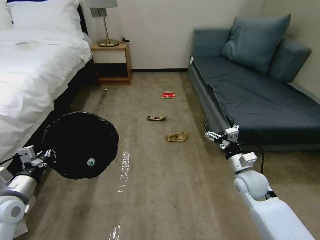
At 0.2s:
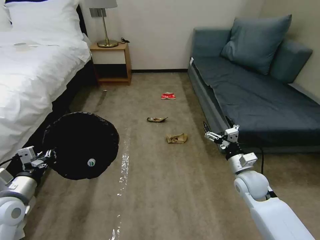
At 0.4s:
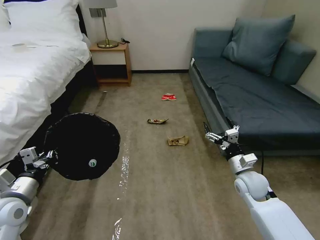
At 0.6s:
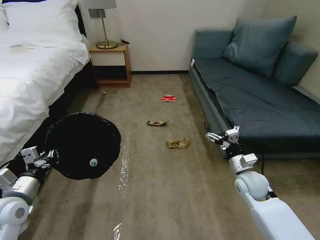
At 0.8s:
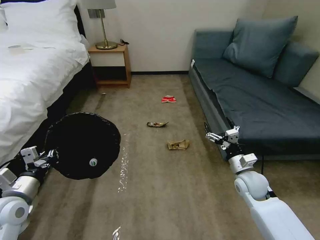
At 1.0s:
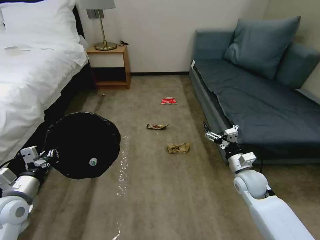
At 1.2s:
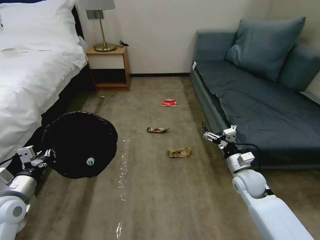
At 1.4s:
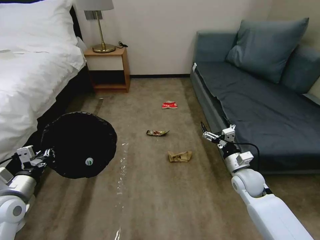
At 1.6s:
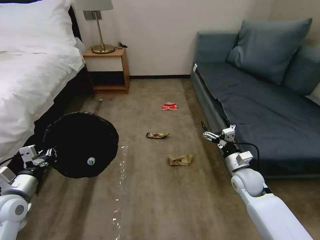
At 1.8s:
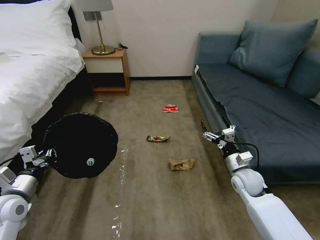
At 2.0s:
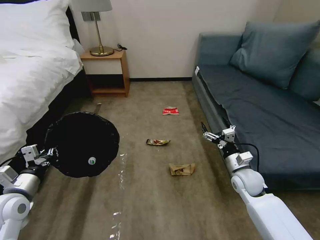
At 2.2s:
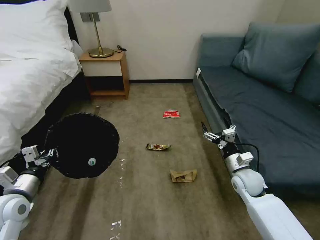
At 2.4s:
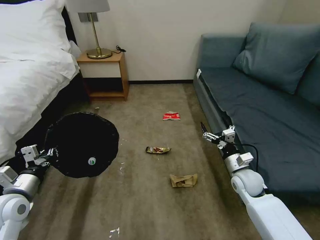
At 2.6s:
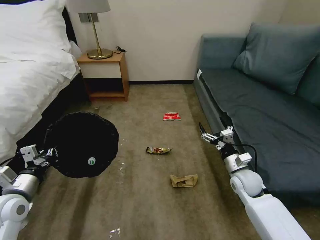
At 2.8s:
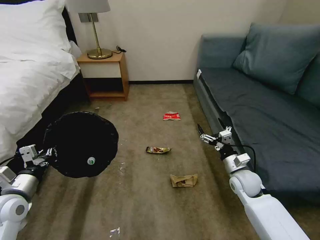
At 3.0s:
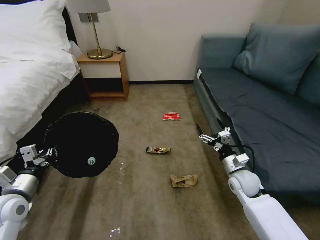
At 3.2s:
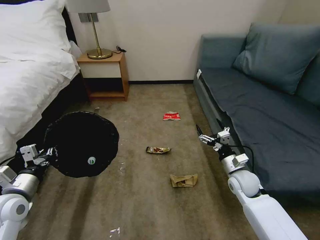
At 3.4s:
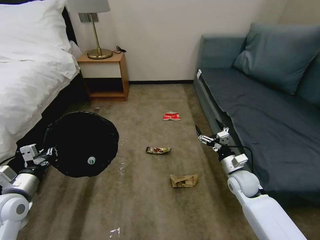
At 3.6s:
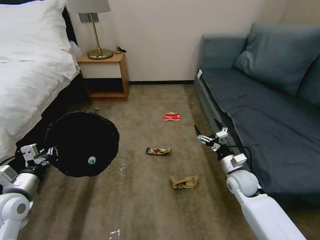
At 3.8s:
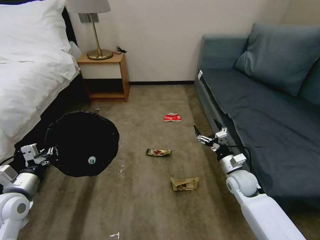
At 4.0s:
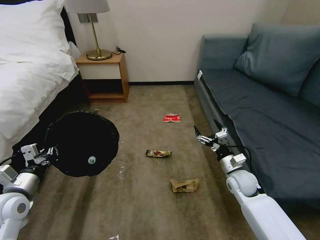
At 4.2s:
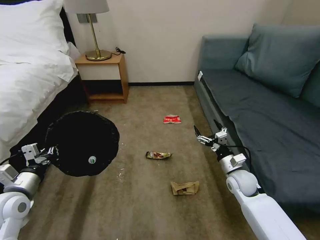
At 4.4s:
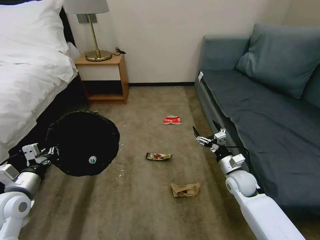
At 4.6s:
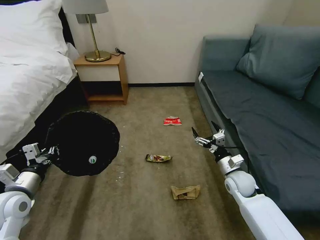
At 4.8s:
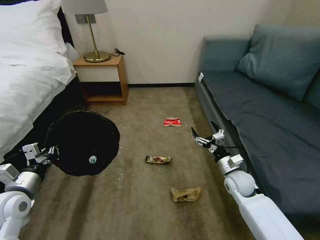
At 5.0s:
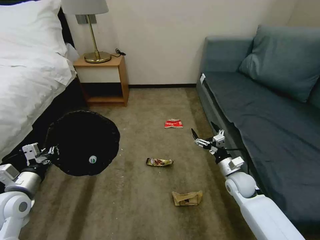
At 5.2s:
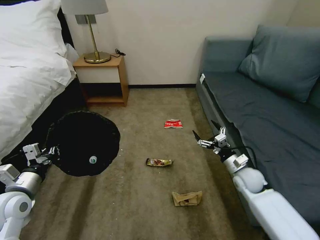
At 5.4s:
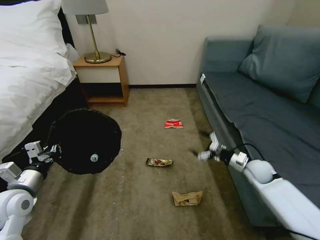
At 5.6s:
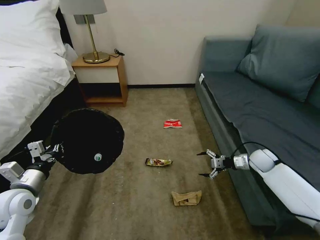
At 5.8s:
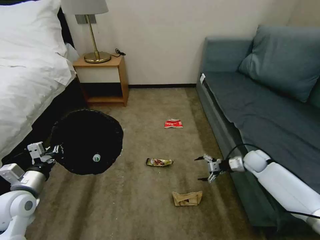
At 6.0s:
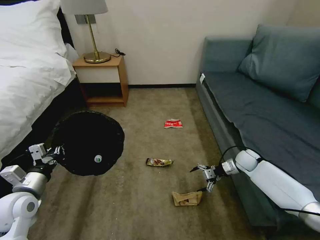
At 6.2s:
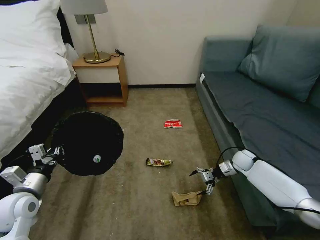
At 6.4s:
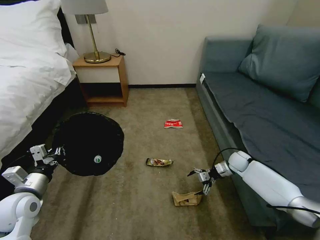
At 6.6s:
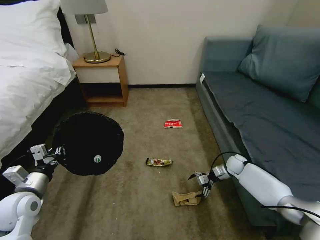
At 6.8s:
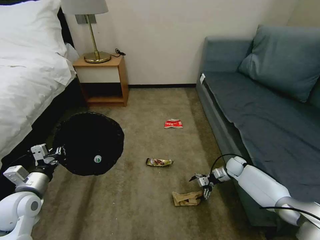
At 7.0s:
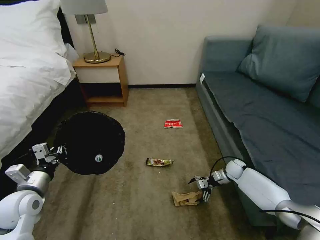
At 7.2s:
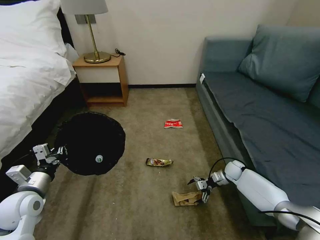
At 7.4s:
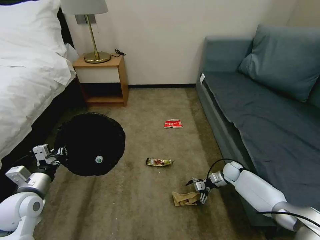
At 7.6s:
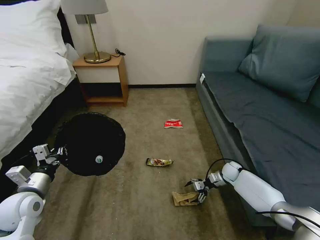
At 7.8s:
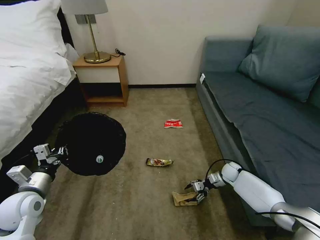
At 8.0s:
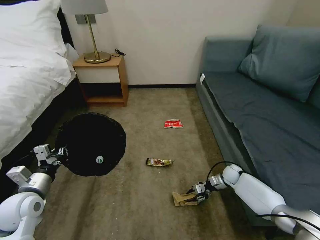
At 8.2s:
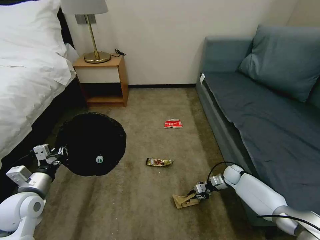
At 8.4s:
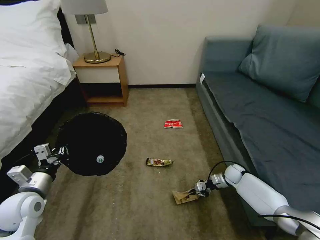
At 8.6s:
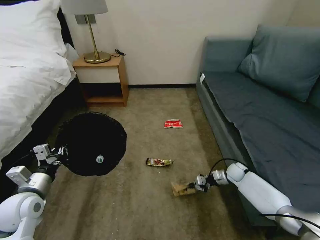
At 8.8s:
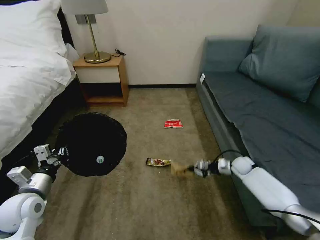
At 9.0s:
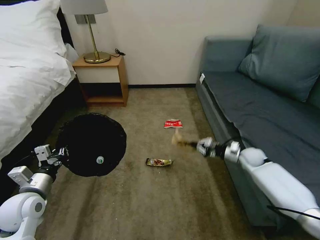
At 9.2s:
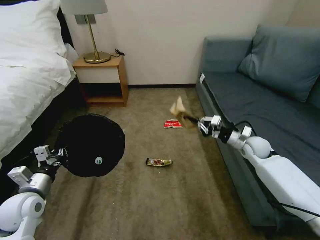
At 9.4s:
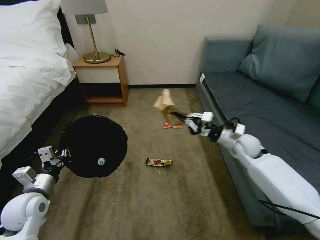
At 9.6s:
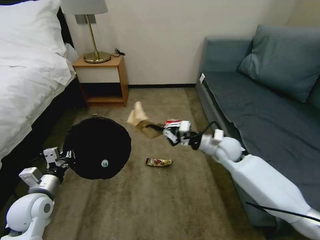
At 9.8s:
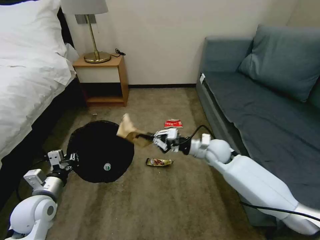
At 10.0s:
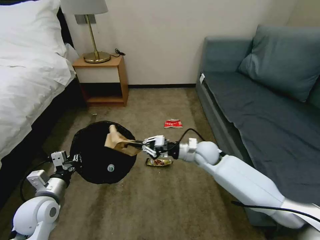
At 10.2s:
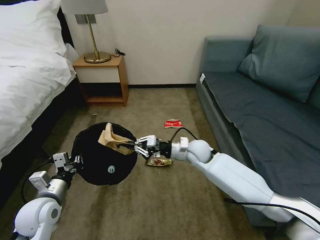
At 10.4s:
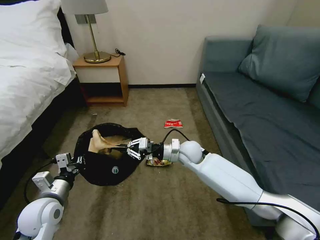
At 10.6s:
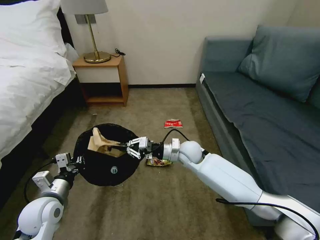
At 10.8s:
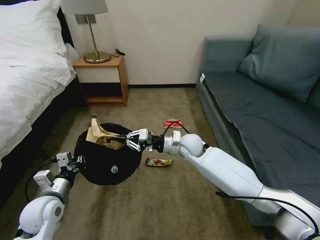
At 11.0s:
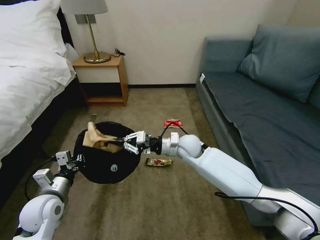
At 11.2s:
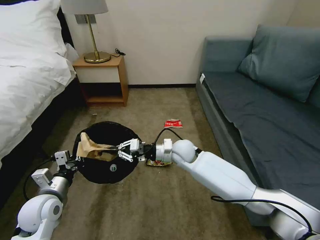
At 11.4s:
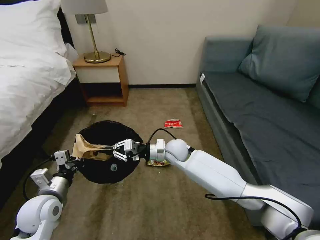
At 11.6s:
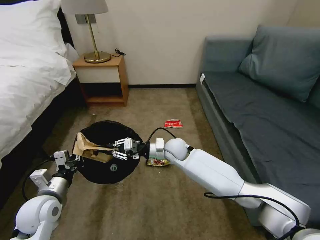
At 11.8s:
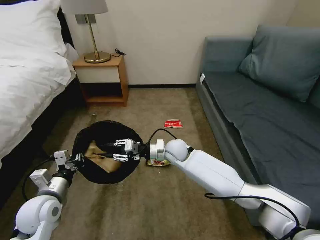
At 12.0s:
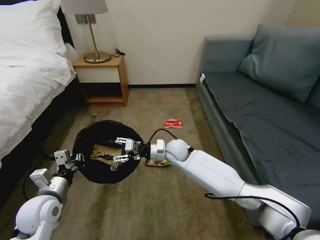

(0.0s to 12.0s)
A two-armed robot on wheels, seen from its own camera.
Task of the whole recording: Pick up the trash bin, then pick up the garbage on the floor and place it into the trash bin.
3.0s - 4.4s: The two grippers keep their place.
4.4s - 6.0s: The right gripper shifts approximately 15 cm forward and to the right.
6.0s - 7.6s: The right gripper heads downward, covering about 10 cm.
7.6s - 9.0s: The right gripper heads upward, covering approximately 5 cm, and closes.
9.0s - 10.4s: The right gripper shifts roughly 30 cm to the left and upward.
10.4s - 12.0s: The right gripper travels to the left by approximately 5 cm, and opens its fingers.

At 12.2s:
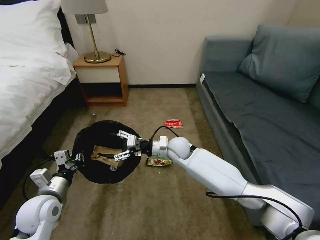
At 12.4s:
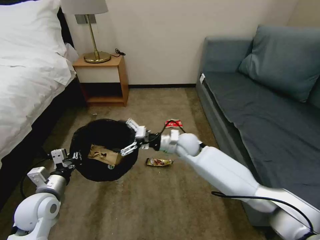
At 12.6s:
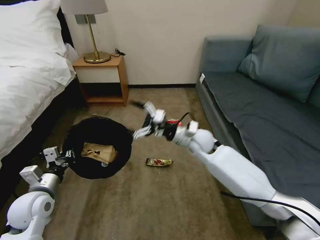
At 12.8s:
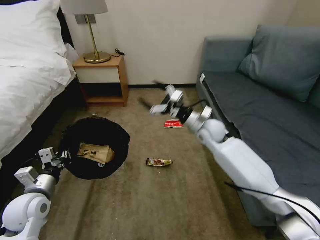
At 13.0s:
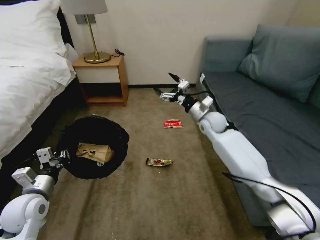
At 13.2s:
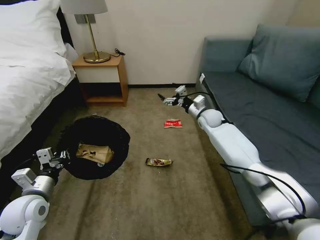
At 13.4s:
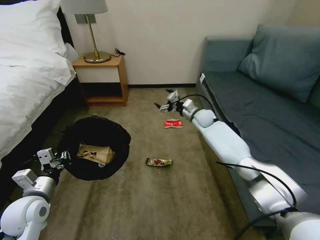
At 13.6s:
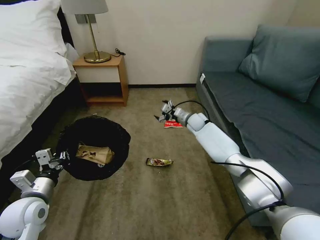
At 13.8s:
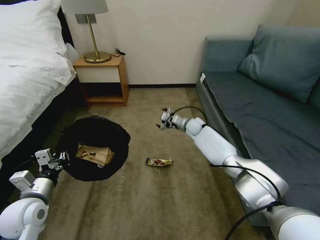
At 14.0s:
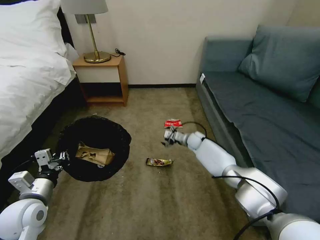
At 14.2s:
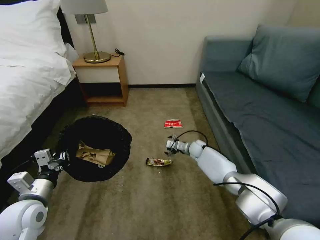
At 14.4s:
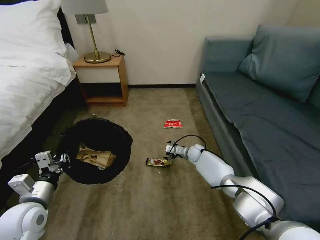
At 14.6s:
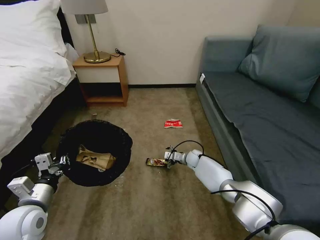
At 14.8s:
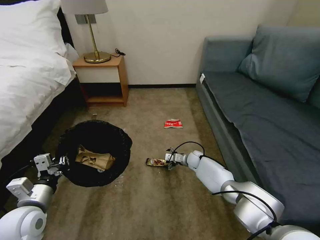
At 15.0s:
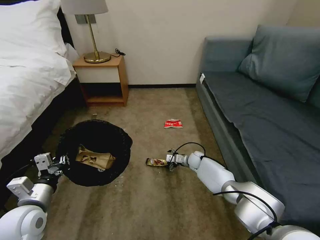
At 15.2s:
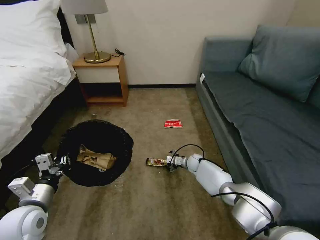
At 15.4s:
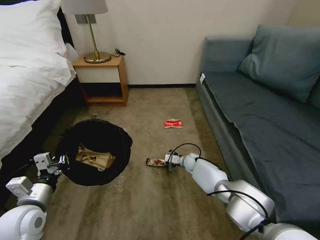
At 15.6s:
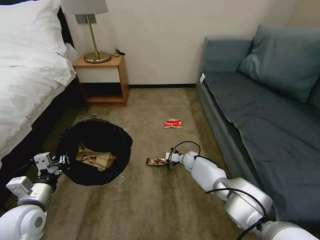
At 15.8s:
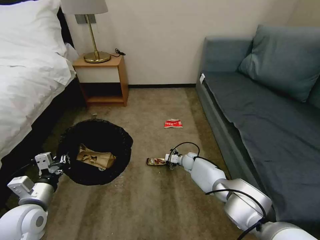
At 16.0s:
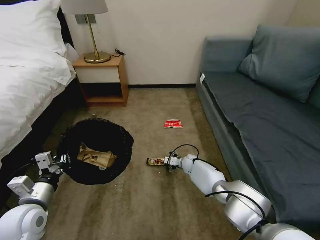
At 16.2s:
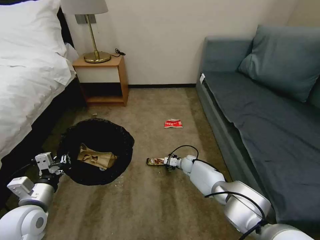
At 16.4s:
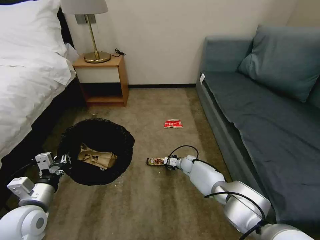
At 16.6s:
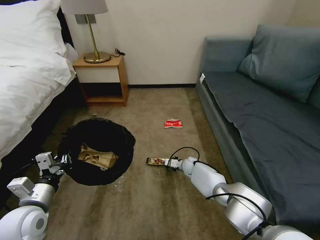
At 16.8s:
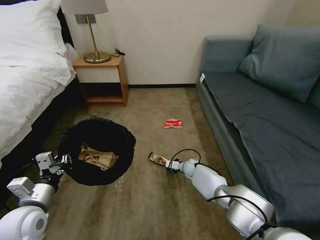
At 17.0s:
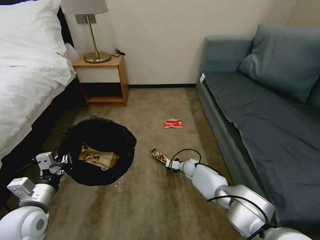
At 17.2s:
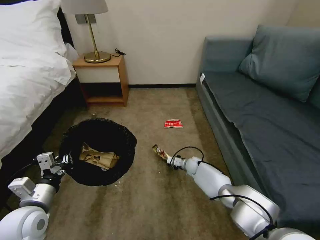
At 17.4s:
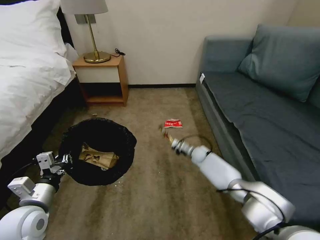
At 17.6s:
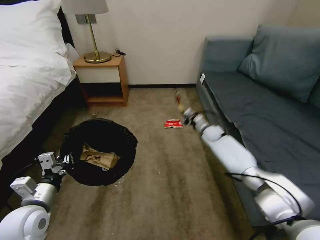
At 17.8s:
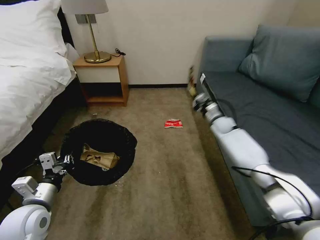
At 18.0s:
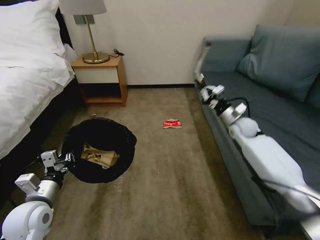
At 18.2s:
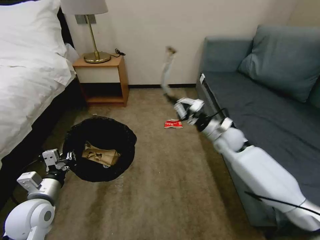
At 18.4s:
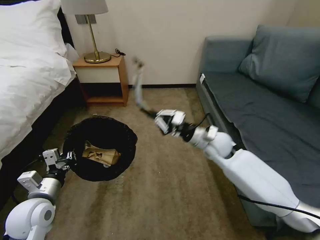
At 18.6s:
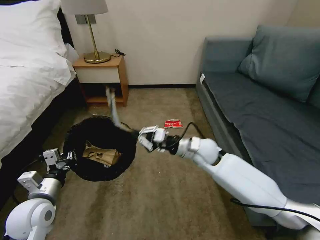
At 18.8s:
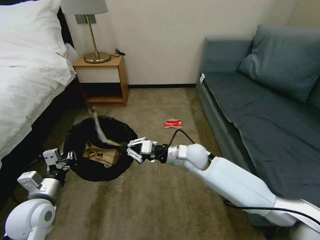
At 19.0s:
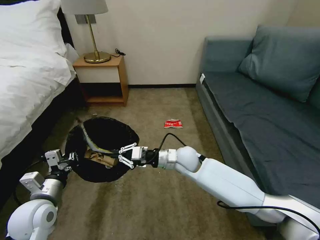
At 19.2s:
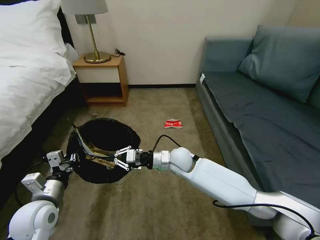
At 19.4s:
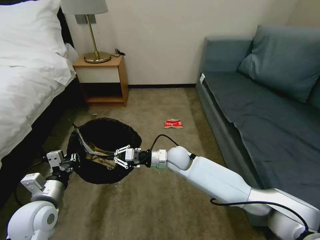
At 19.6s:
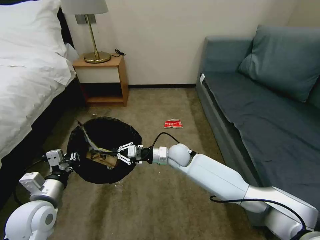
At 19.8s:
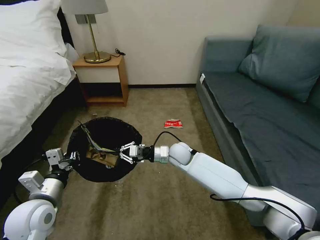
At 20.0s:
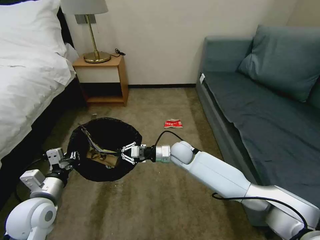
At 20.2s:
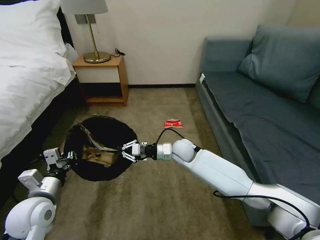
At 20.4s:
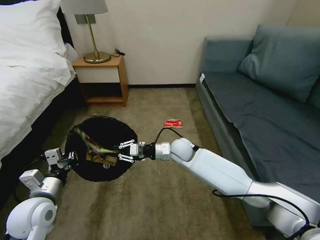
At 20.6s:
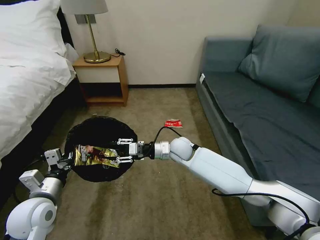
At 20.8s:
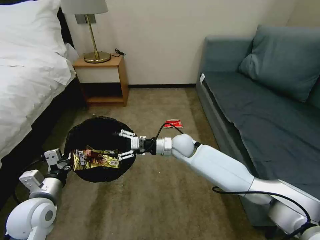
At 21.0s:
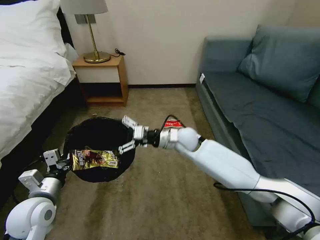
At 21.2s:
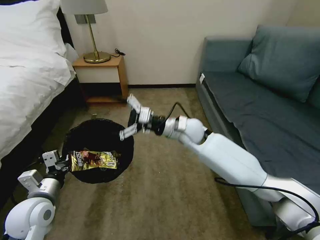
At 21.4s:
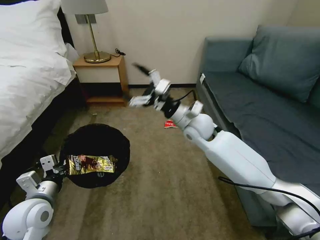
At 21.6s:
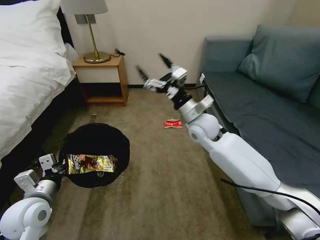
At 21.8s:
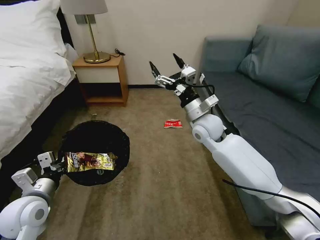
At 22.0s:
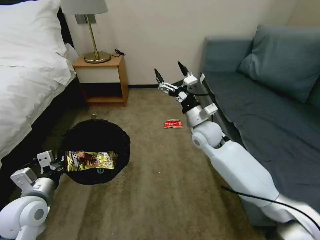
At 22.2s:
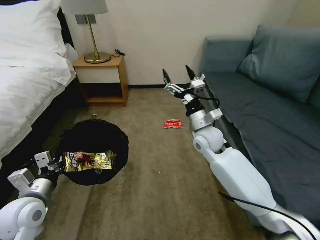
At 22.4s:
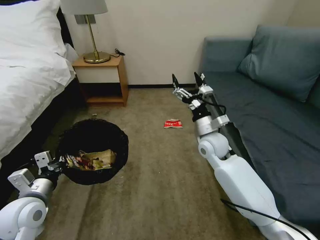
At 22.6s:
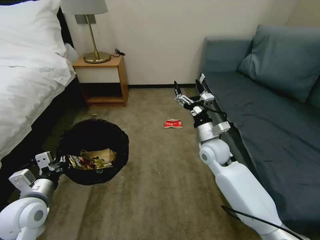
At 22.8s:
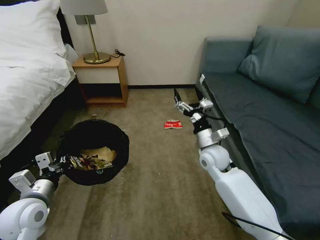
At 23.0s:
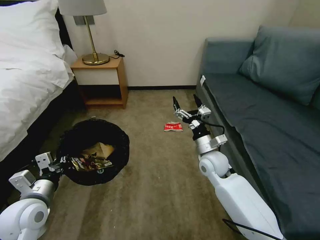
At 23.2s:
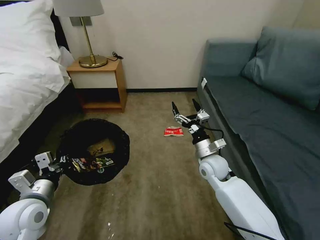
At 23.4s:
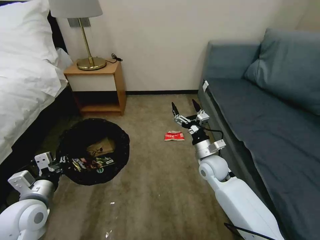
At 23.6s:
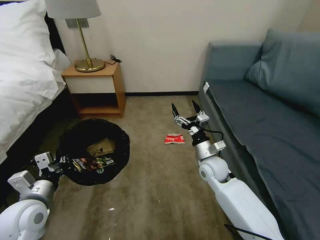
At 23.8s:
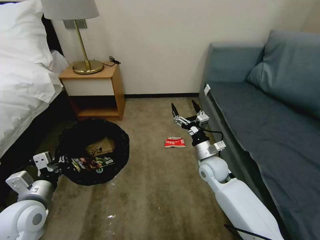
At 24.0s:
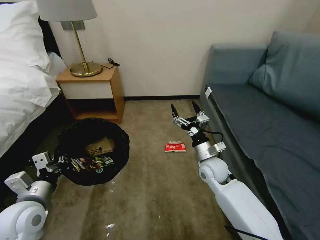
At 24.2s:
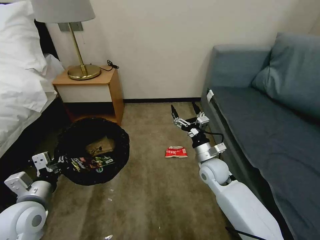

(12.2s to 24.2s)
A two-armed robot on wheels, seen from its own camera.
Task of the whole recording: Pick up the trash bin, then pick up the garbage on the floor and place it into the trash bin.
12.2s - 13.8s: The right gripper moves forward and to the right, some 20 cm.
13.8s - 15.2s: The right gripper goes roughly 20 cm downward and backward.
15.2s - 16.6s: The right gripper closes its fingers.
16.6s - 18.2s: The right gripper is displaced upward and to the right by approximately 30 cm, and closes up.
18.2s - 19.8s: The right gripper travels to the left and backward by some 30 cm.
19.8s - 21.2s: The right gripper changes place by some 5 cm, and opens up.
21.2s - 22.6s: The right gripper travels to the right and upward by about 10 cm.
22.6s - 24.2s: The right gripper moves downward and backward, approximately 10 cm.
